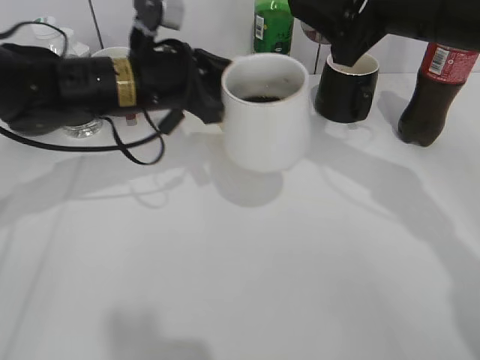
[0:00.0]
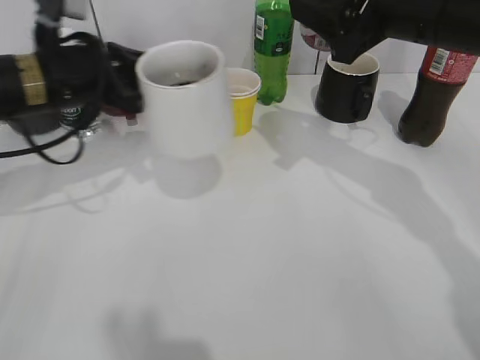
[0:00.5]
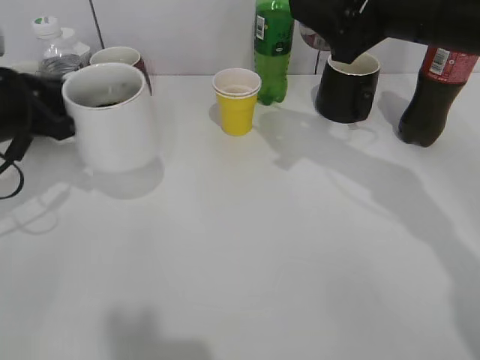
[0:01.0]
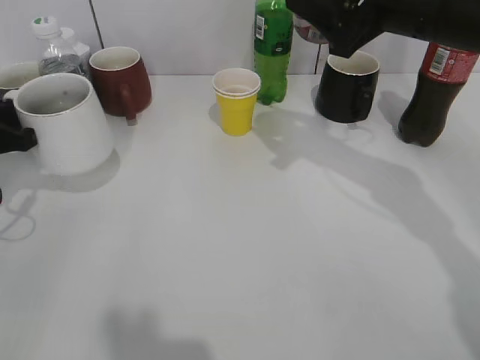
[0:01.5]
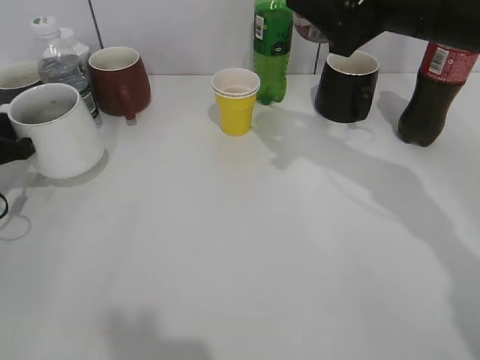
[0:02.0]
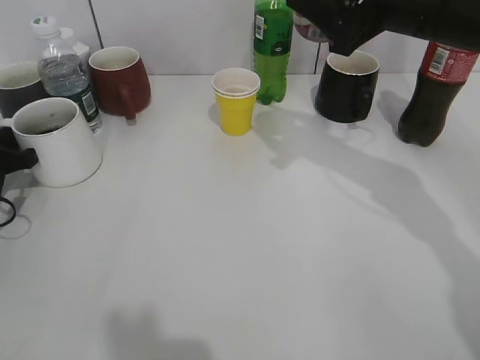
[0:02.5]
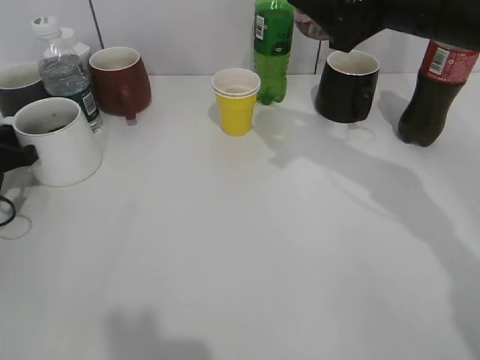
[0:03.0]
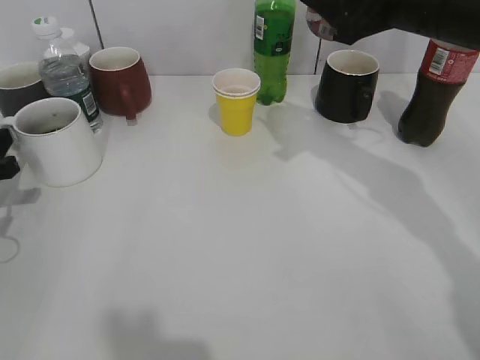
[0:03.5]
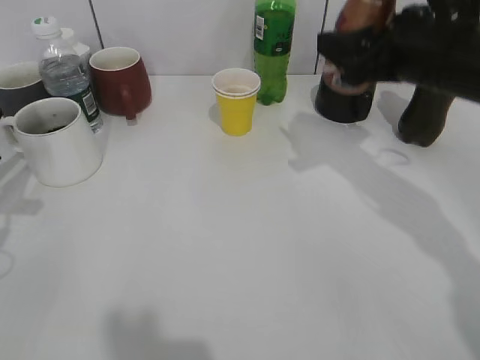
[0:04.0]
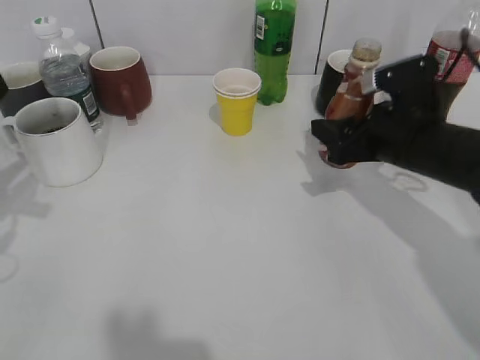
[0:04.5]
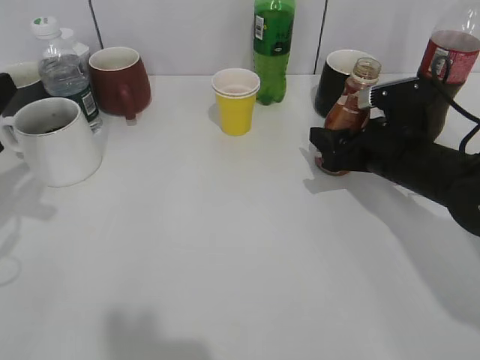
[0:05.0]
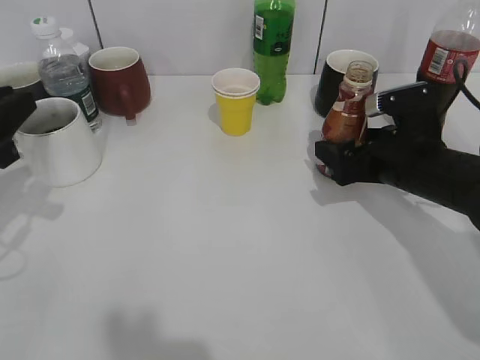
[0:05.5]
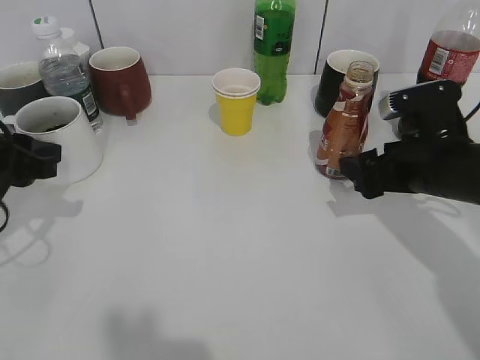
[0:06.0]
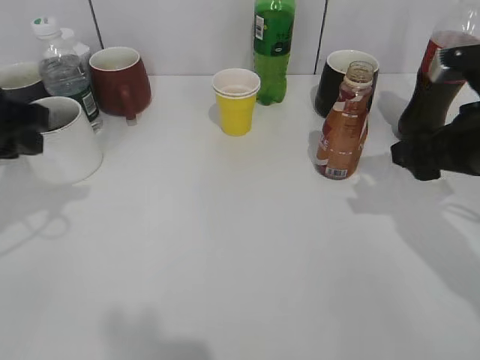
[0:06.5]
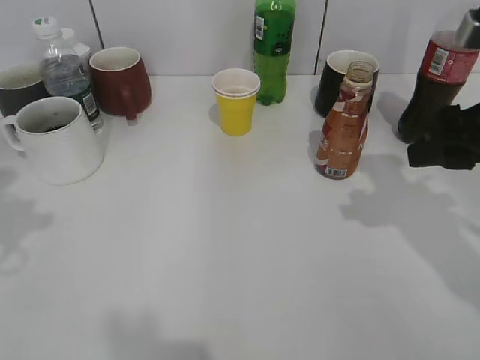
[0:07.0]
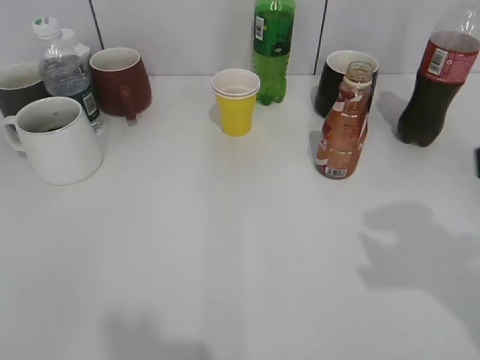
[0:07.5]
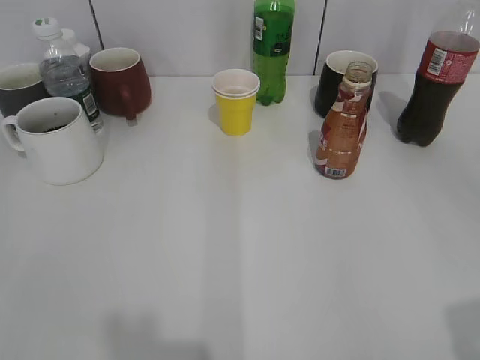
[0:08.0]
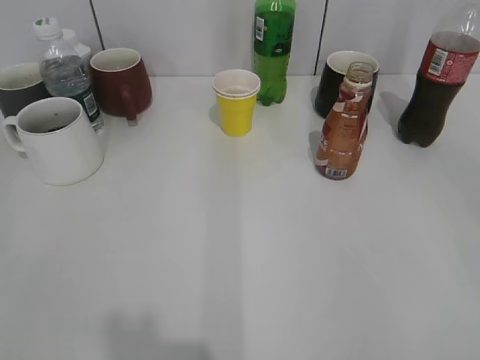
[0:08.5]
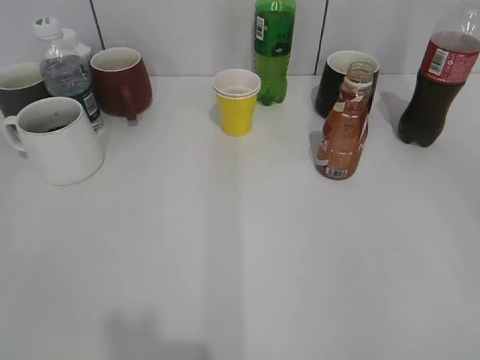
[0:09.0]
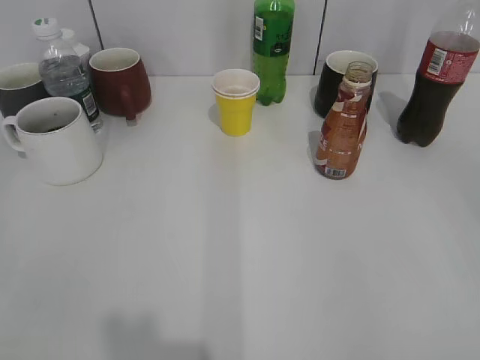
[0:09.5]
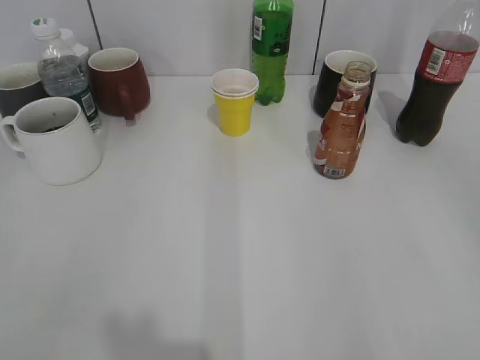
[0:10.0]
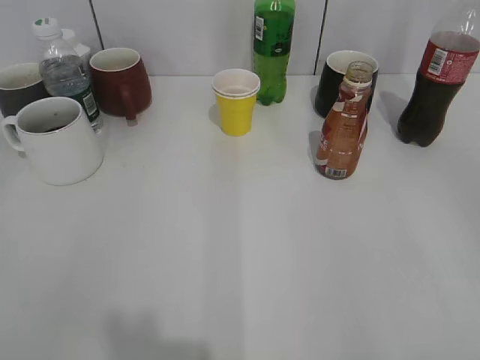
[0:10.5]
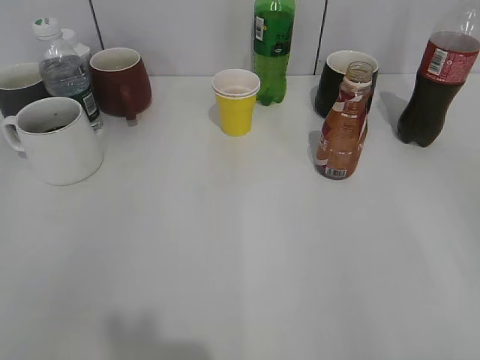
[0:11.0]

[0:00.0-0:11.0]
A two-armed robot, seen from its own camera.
Step, 0:00.0 to 0:03.5: Place the white cup on the table with left gripper.
Step, 0:04.0 to 0:05.5: Place the coffee bottle on the table with right gripper.
0:00.0 to 0:02.0: The left gripper heads to the left, covering roughly 25 cm.
0:02.0 to 0:03.5: The left gripper opens.
0:03.5 to 0:05.5: The left gripper is displaced upward by approximately 5 cm; the right gripper goes roughly 15 cm downward, and opens.
0:05.5 to 0:07.5: The left gripper heads backward and upward, covering some 20 cm. Meanwhile the right gripper shifts about 25 cm upward and backward, and closes up.
0:07.5 to 0:09.0: The right gripper is displaced backward and to the right by about 15 cm.
